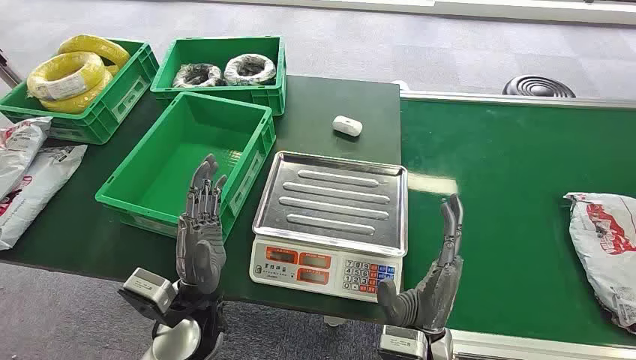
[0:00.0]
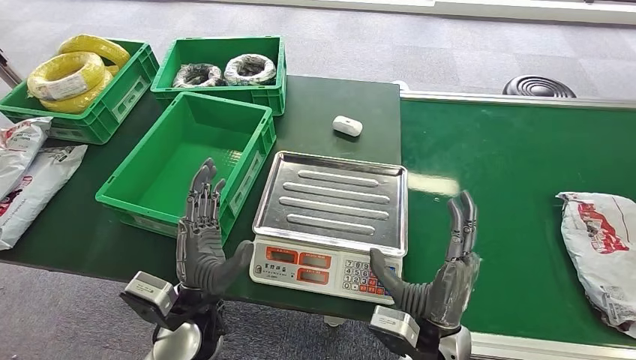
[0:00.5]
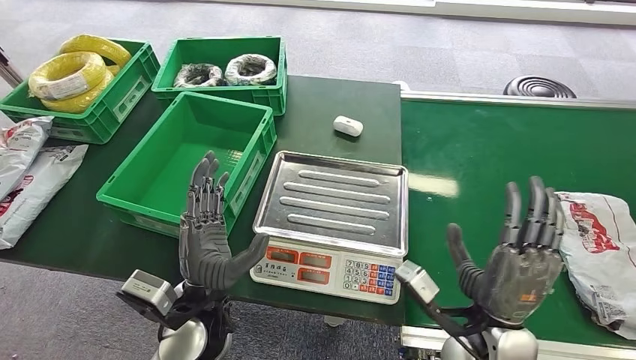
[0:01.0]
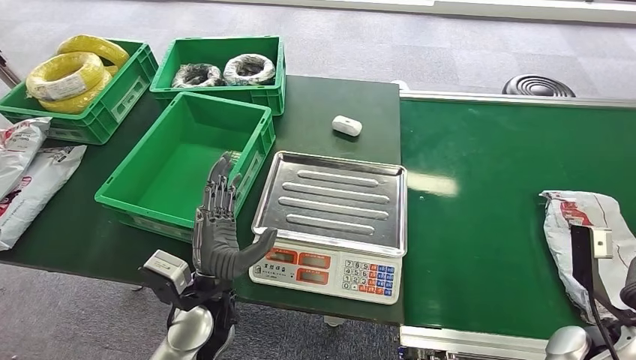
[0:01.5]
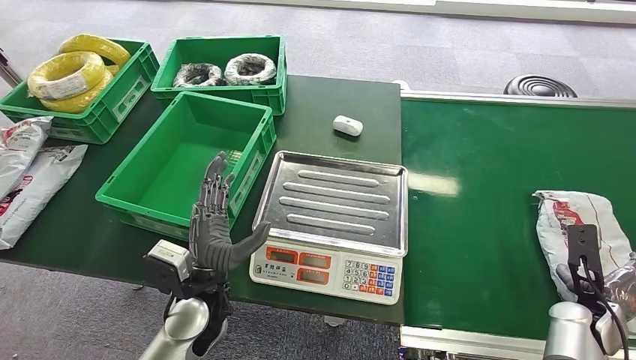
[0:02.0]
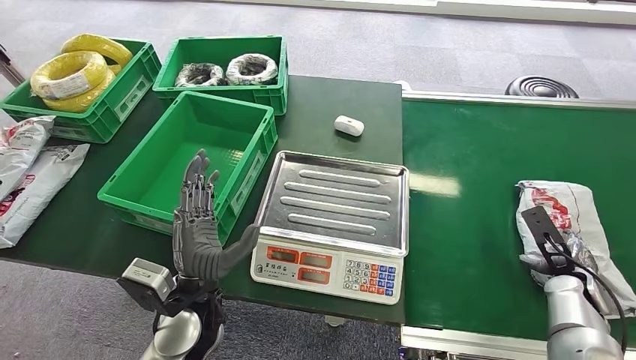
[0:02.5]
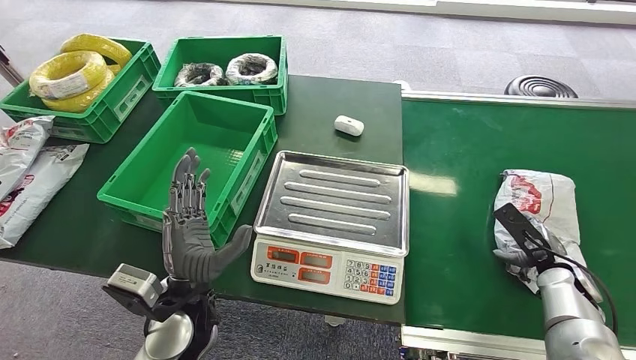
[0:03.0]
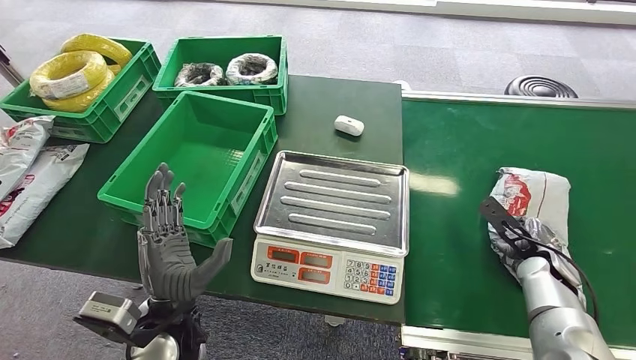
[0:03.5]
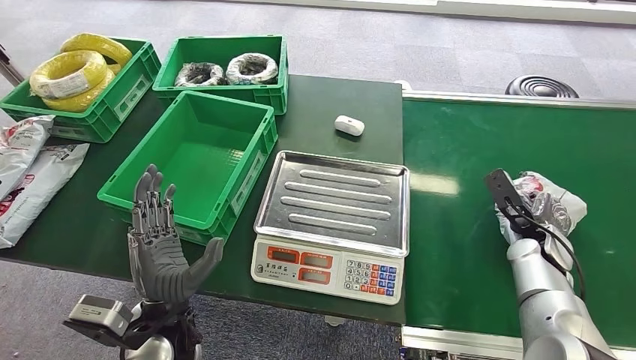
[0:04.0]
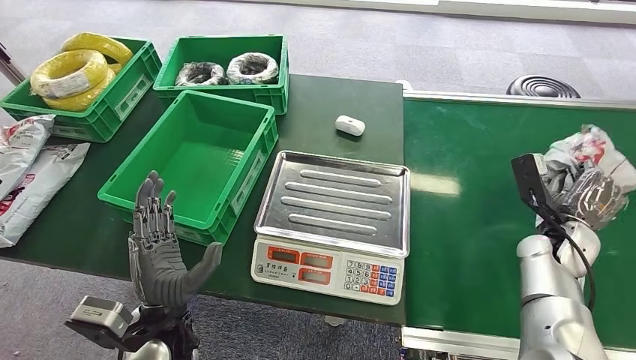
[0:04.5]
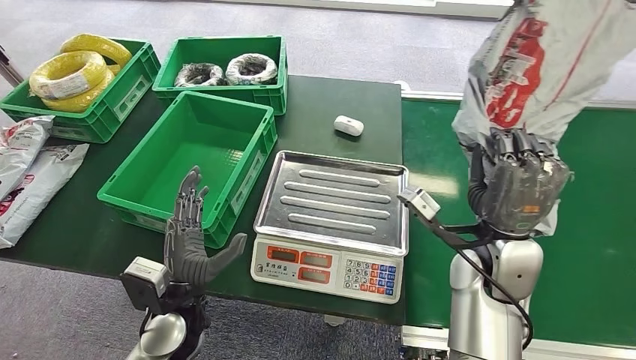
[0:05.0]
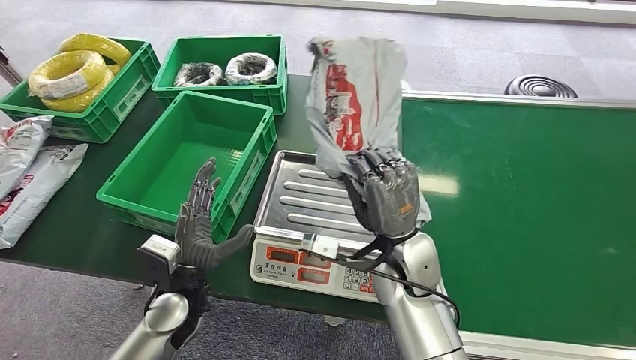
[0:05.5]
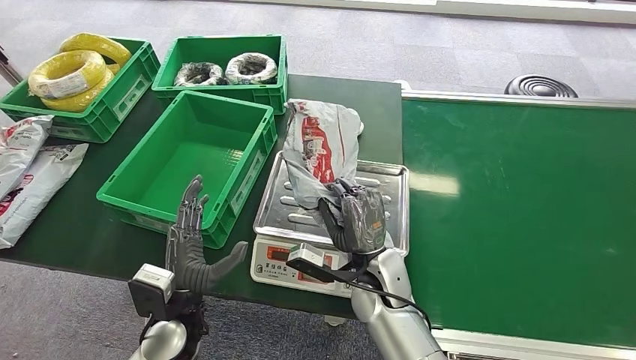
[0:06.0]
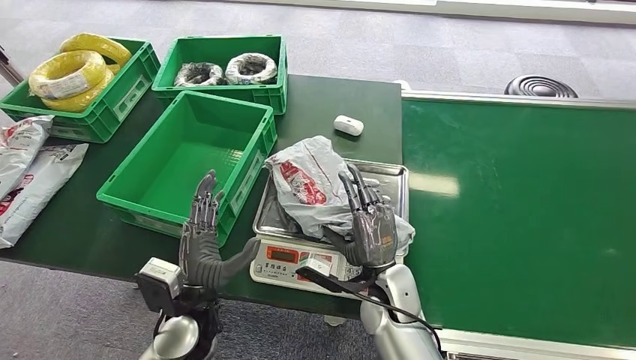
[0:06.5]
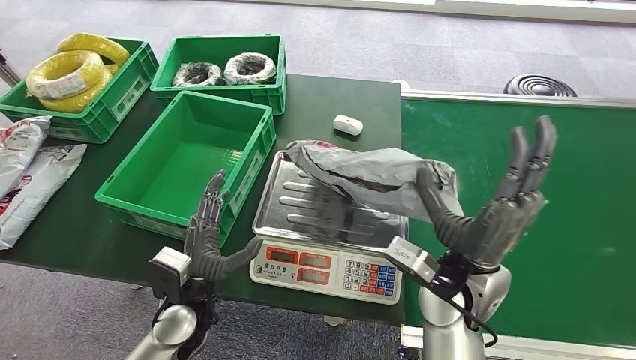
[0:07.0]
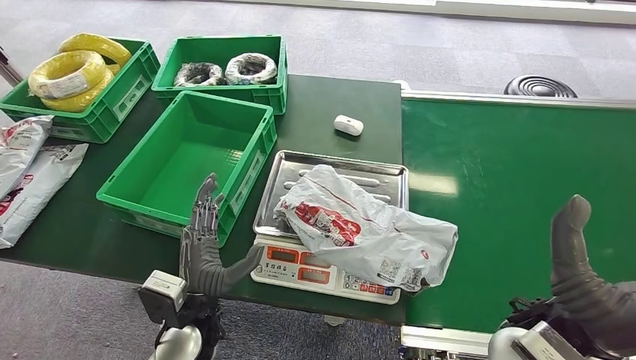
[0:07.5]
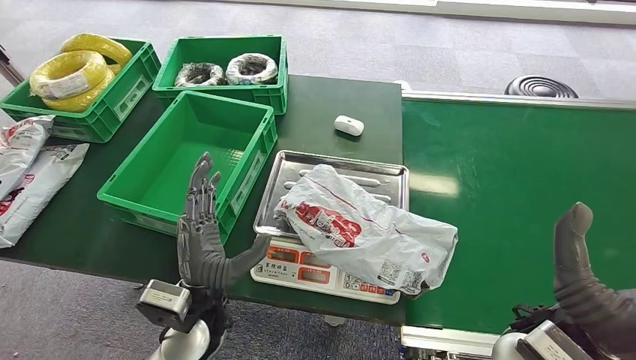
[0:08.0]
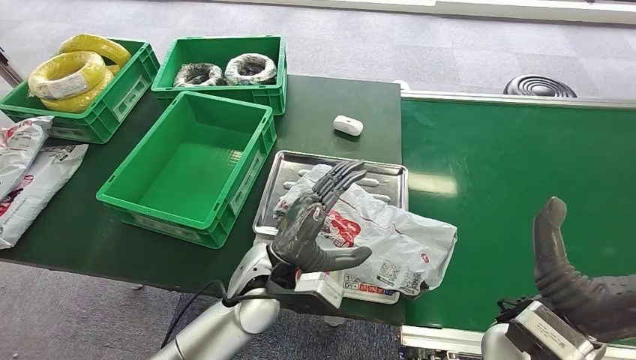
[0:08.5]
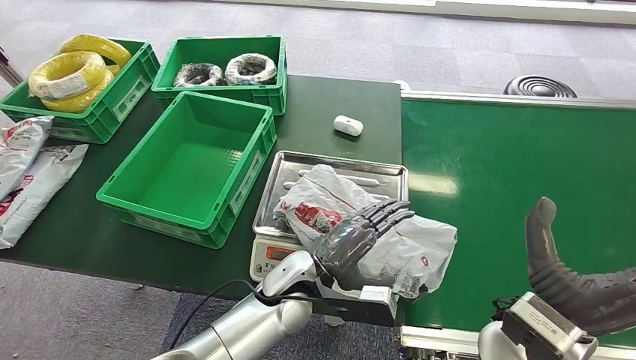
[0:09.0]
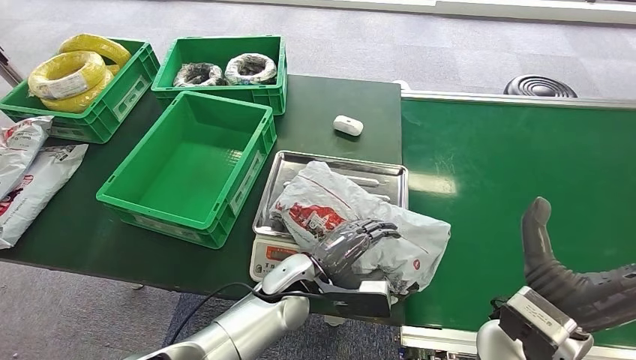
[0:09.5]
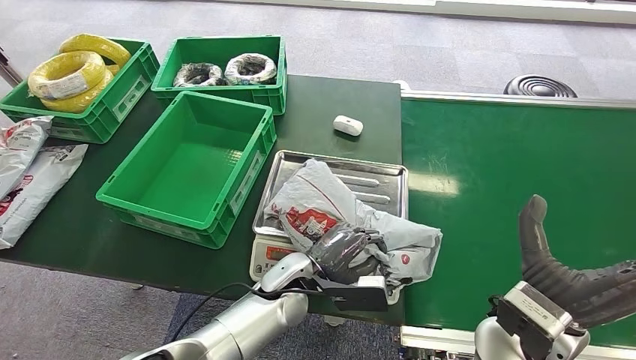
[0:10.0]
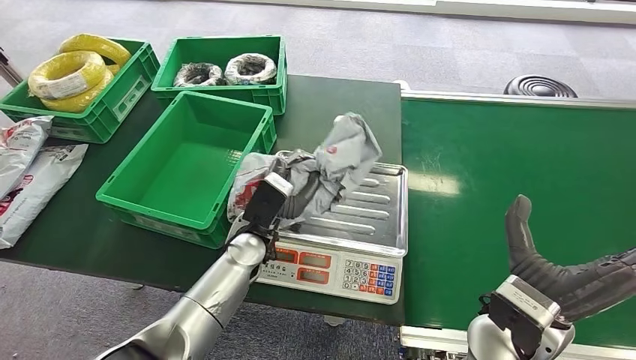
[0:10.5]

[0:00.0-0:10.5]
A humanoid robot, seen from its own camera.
Step, 0:00.0 to 0:04.5: Pick up the package from the conveyor belt.
Step, 0:05.5 to 0:07.5: Place the package onto the inbound machine.
0:02.0 to 0:04.0: The left hand moves backward, approximately 5 cm. Meanwhile the right hand goes some 10 cm forward and to the left.
0:04.0 to 0:06.5: The right hand travels to the left by approximately 30 cm.
0:06.5 to 0:08.5: The left hand shifts roughly 10 cm to the right and upward. The right hand shifts roughly 20 cm upward, to the right and backward.
0:08.5 to 0:10.5: The left hand heads forward, covering about 5 cm.

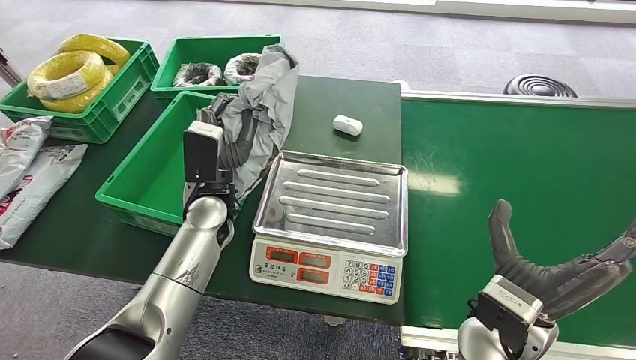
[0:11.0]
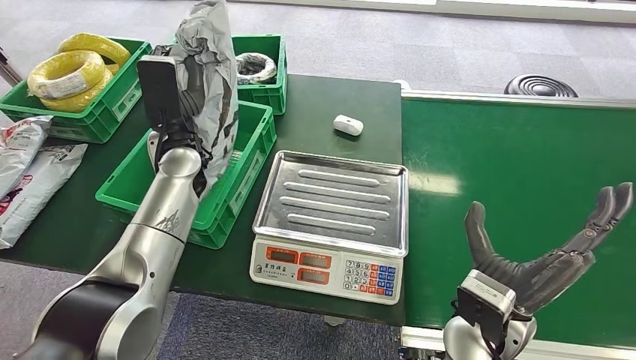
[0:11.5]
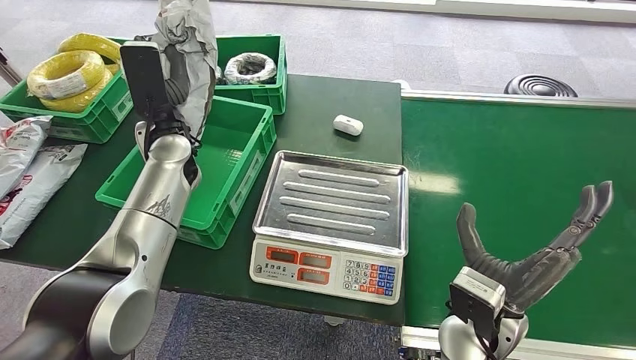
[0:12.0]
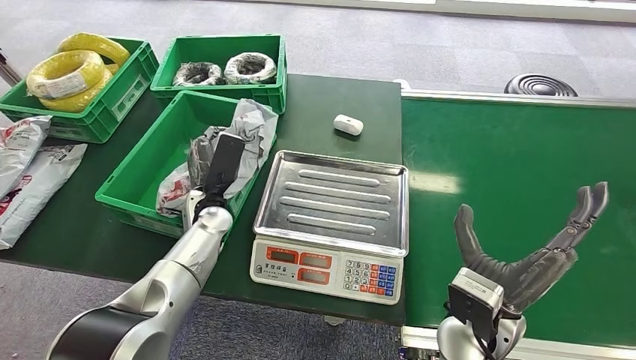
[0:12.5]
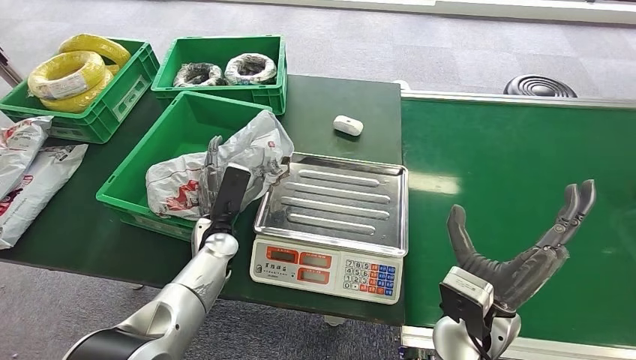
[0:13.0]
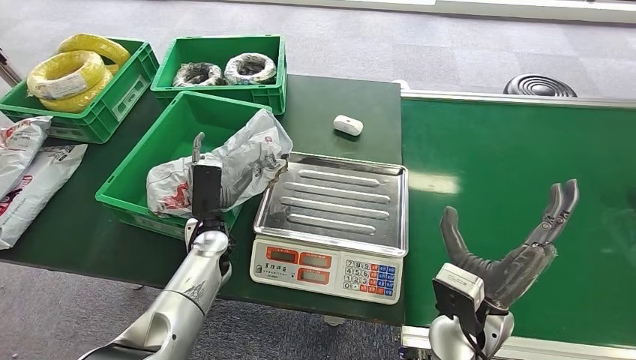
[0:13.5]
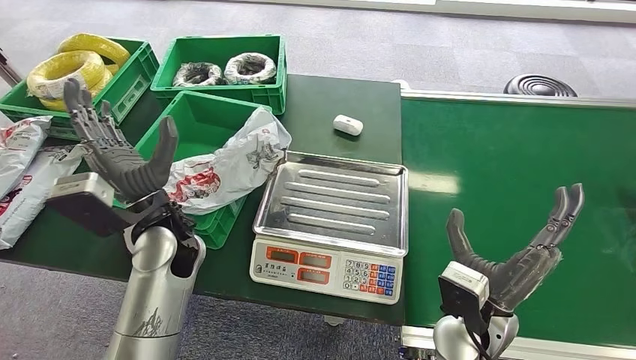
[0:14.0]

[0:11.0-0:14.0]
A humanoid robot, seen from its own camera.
Step, 0:11.5 to 0:14.0: Place the package into the parcel locker.
0:11.0 to 0:12.5: The left hand shifts roughly 5 cm downward.
0:12.5 to 0:14.0: The left hand moves upward and backward, some 10 cm.
